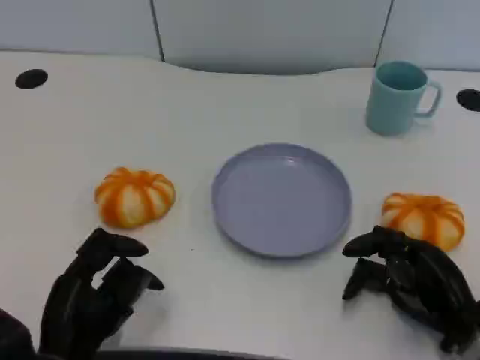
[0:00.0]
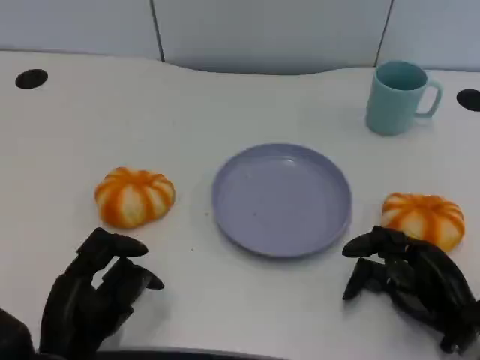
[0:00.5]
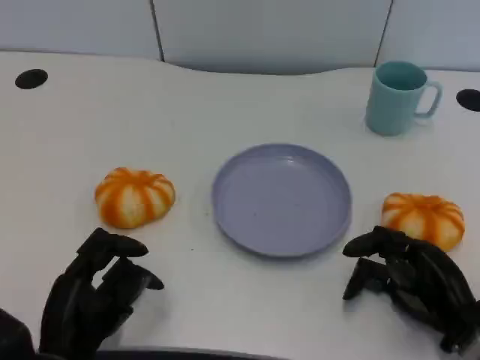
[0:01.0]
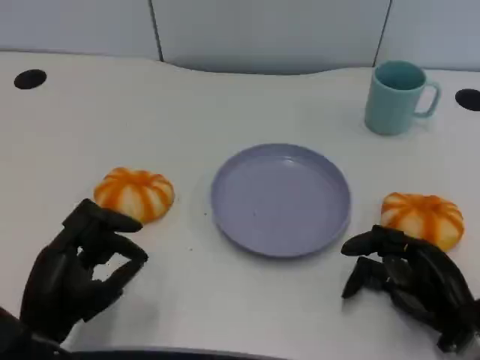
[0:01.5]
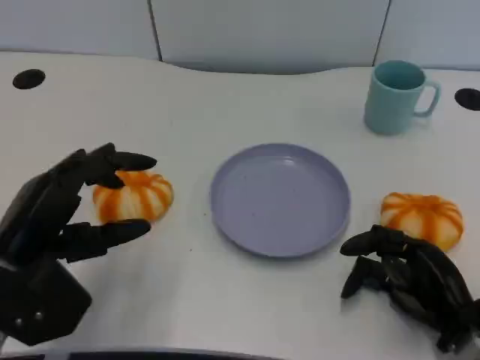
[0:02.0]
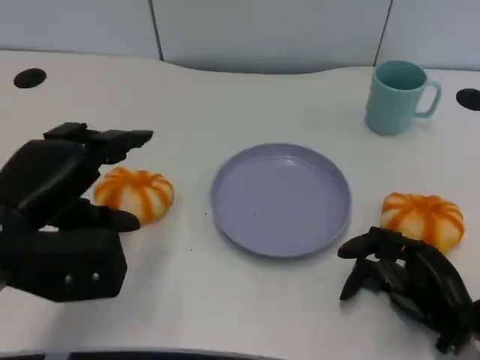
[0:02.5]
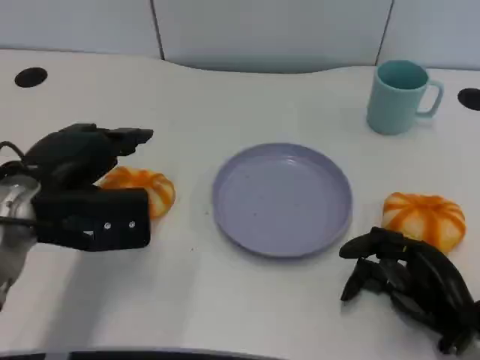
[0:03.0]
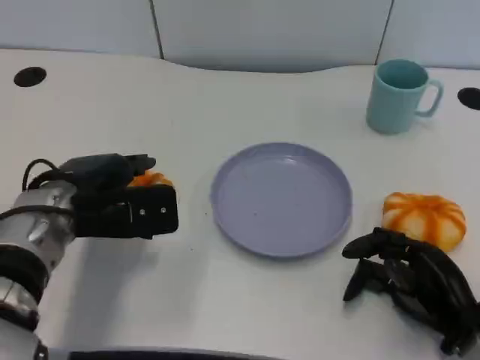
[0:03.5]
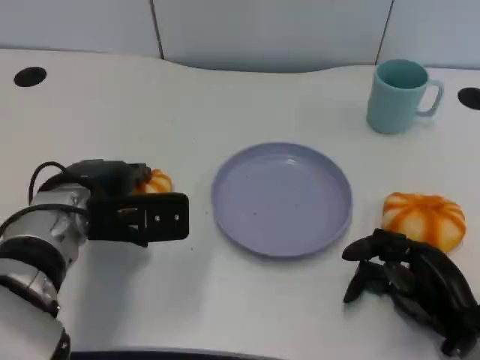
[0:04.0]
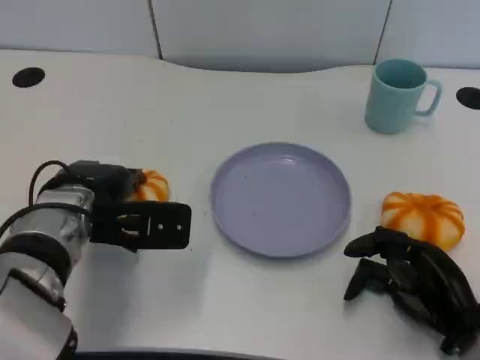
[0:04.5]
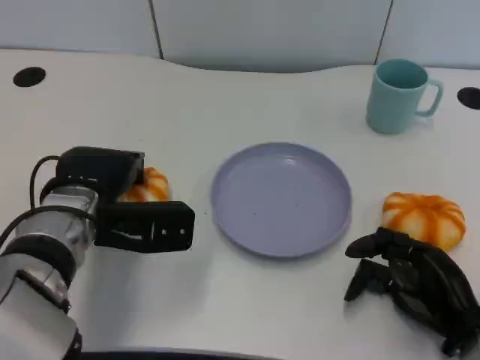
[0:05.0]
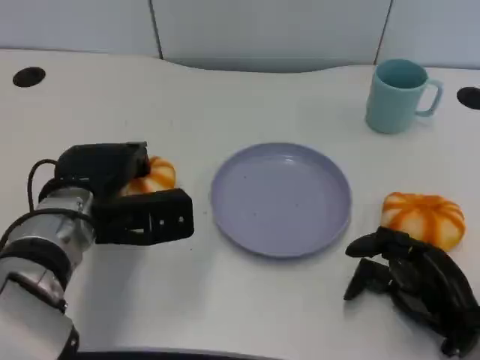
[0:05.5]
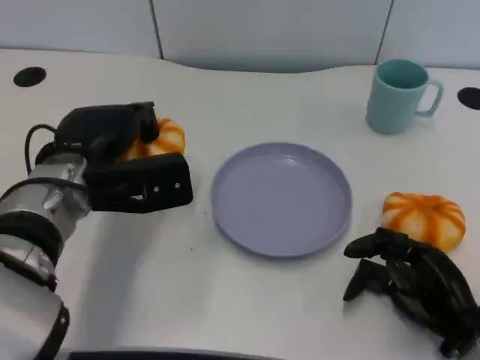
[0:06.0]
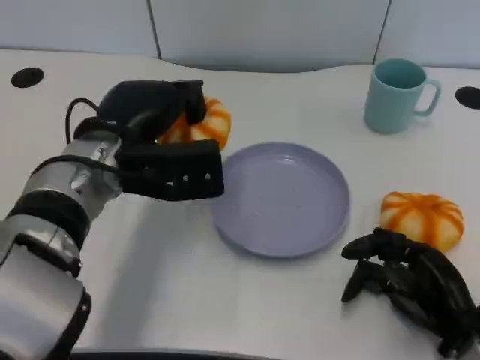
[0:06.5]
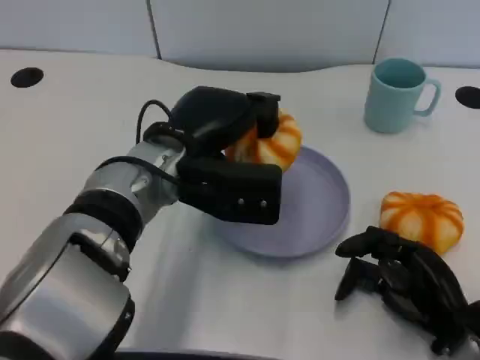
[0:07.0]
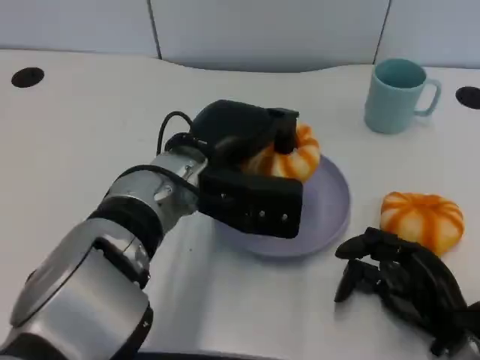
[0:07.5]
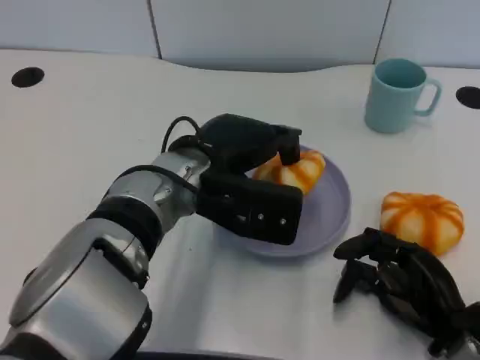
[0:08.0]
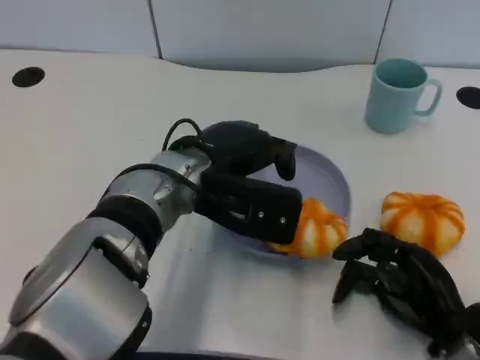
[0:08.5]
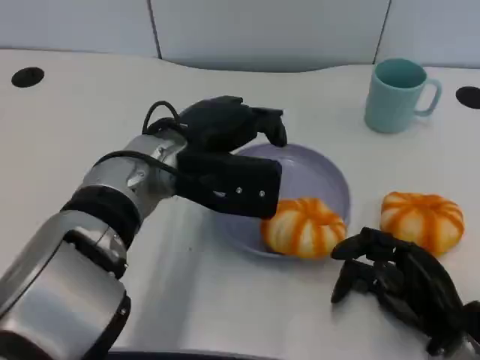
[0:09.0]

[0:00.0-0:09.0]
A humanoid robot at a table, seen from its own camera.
Task of the whole recording: Grasp the bread from the table and place it into the plate.
0:00.0 to 0:02.0: The left hand shifts approximately 10 cm upward.
0:02.0 to 0:04.5: The left hand moves forward and to the right, about 10 cm.
0:04.5 to 0:07.0: The left hand is displaced to the right by some 10 cm.
0:07.0 to 0:09.0: The hands make only small movements.

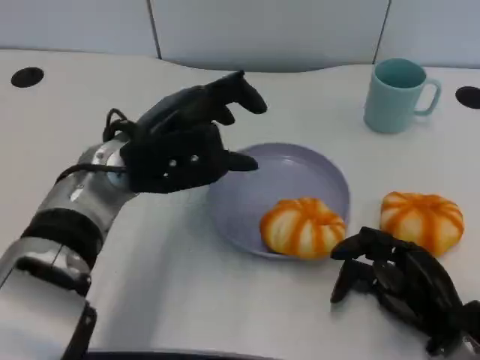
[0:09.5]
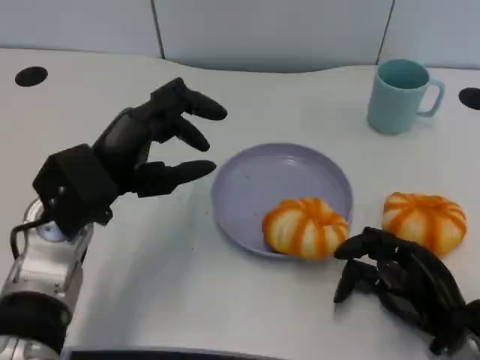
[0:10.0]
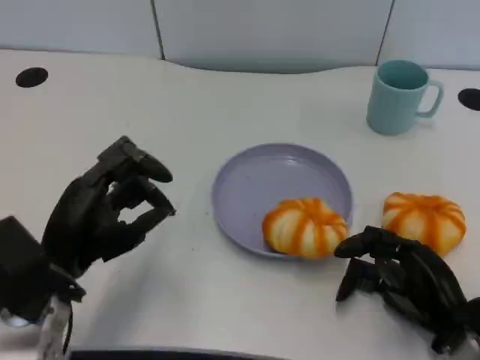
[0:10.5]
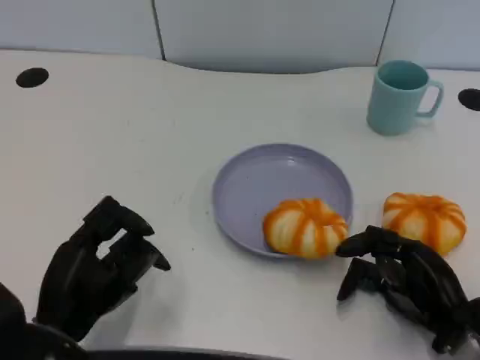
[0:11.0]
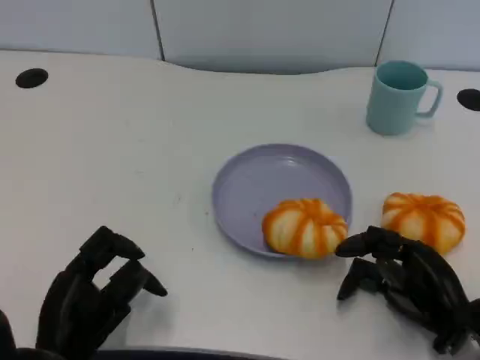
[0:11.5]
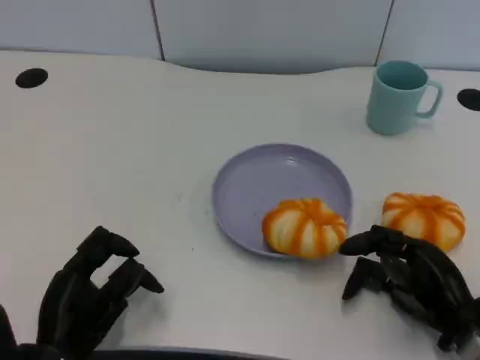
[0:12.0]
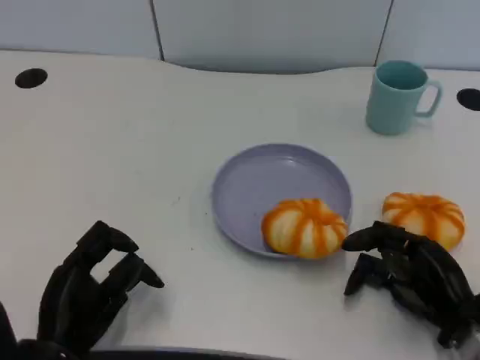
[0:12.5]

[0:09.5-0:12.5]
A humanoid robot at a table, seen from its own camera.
Task of the whole recording: Grasp the bread from the table and place it into the plate.
0:09.5 to 0:11.0: The left hand goes approximately 20 cm backward, downward and to the left.
0:11.0 to 0:12.5: There are only small adjustments of the hands.

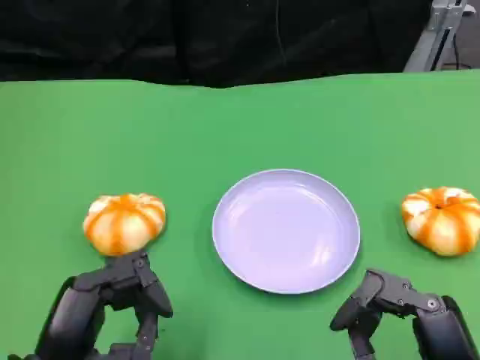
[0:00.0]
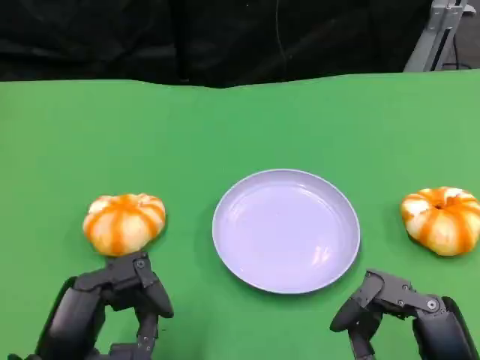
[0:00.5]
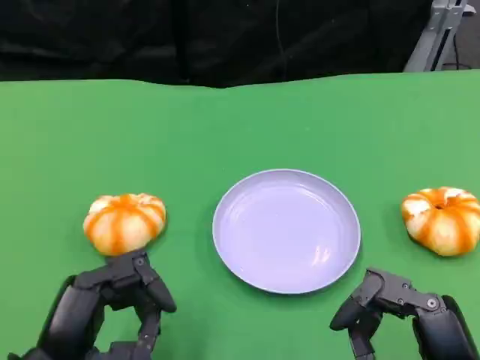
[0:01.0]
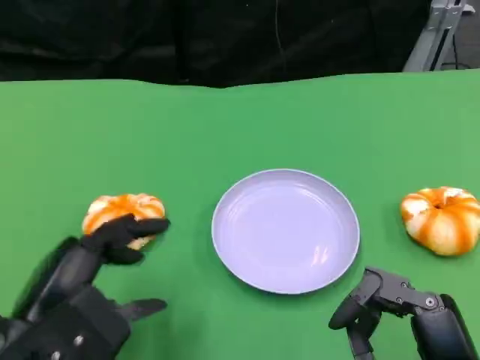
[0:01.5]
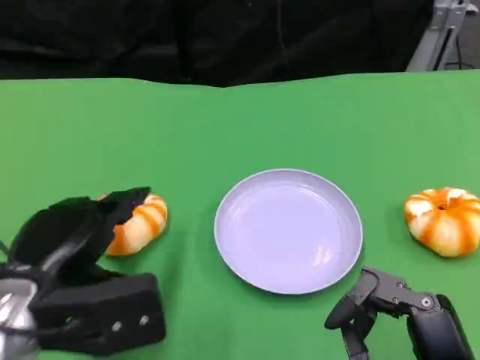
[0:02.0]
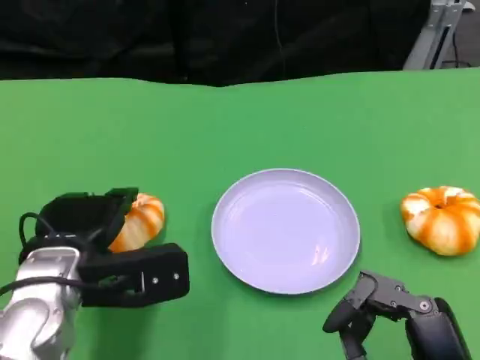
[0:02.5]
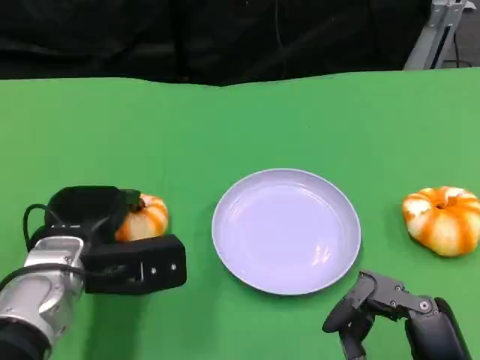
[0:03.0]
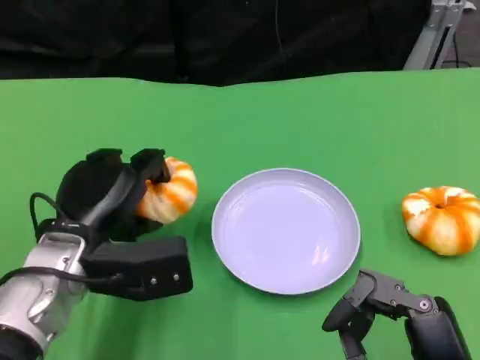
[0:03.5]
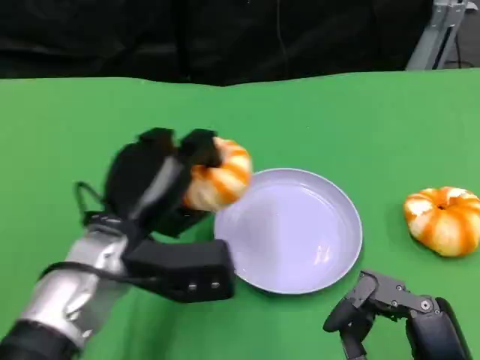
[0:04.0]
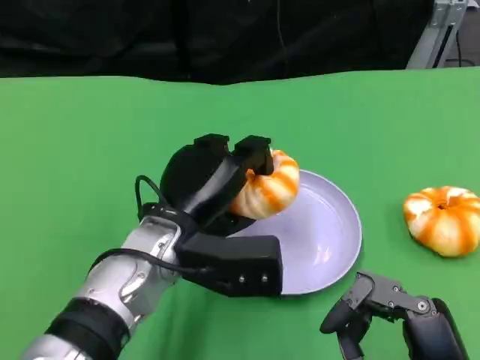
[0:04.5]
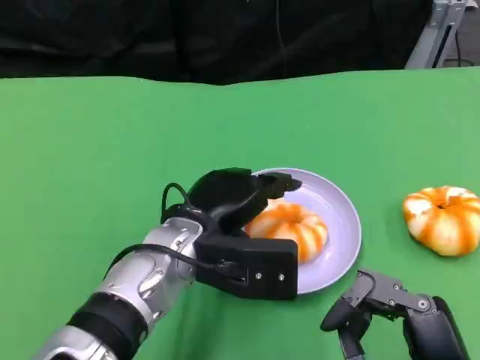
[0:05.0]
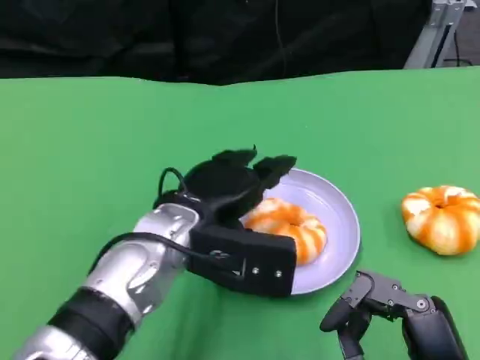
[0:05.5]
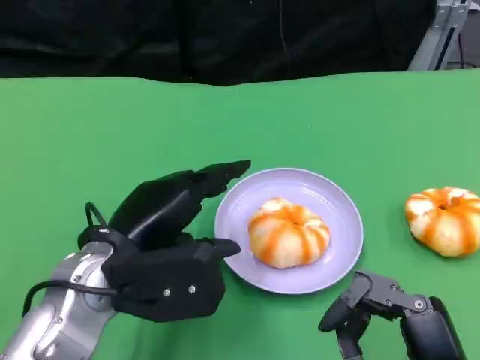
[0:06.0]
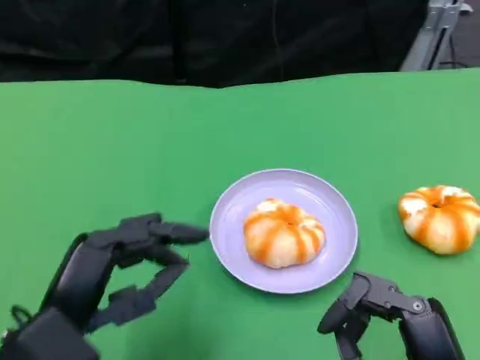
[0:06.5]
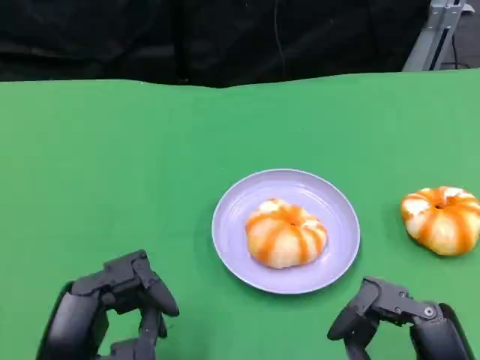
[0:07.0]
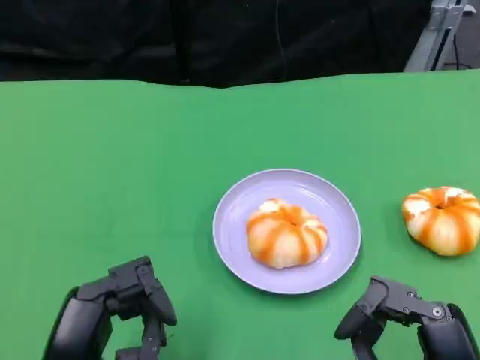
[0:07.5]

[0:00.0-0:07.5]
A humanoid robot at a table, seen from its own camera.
Task of the whole recording: Grasp the bread from the table and place it into the plate.
0:00.0 to 0:02.0: The left hand moves forward, about 5 cm.
0:02.0 to 0:04.0: The left hand goes some 10 cm to the right and forward.
0:05.5 to 0:07.5: The left hand is displaced backward and to the left by approximately 20 cm.

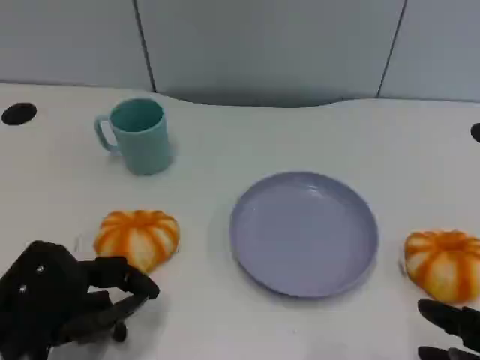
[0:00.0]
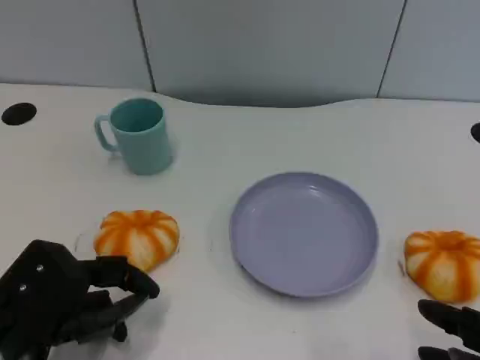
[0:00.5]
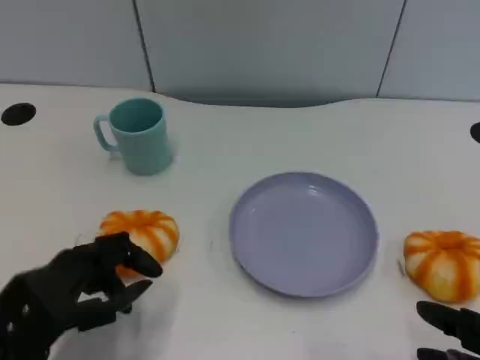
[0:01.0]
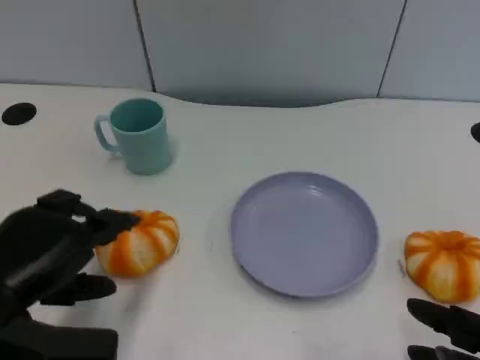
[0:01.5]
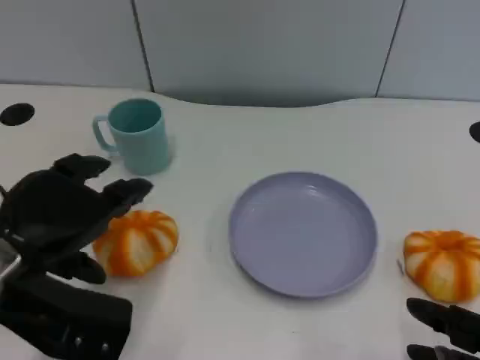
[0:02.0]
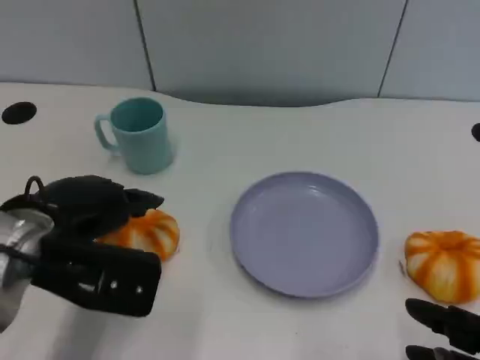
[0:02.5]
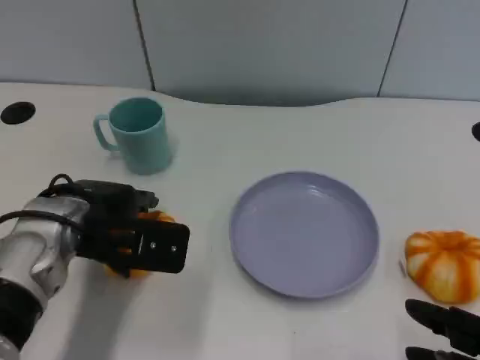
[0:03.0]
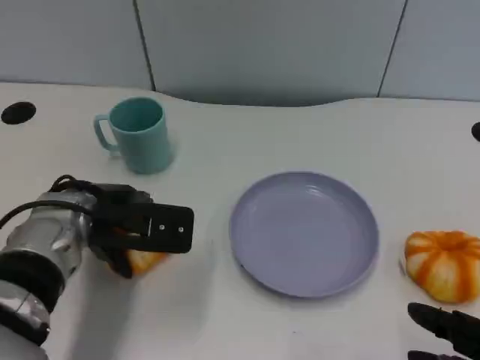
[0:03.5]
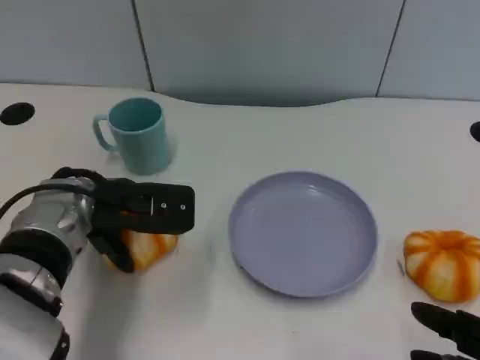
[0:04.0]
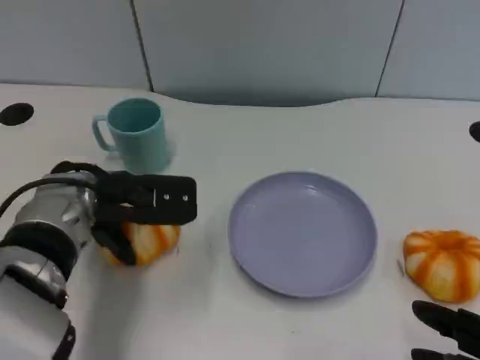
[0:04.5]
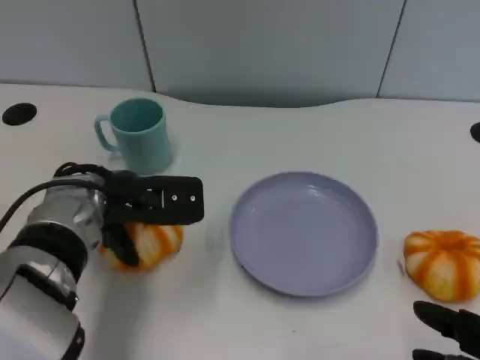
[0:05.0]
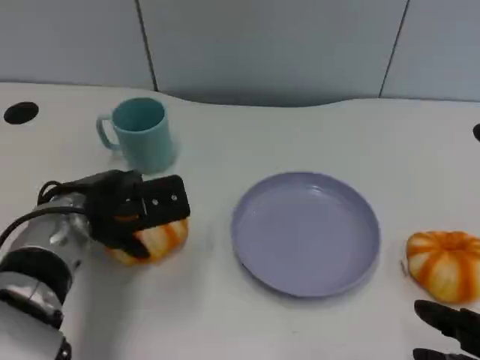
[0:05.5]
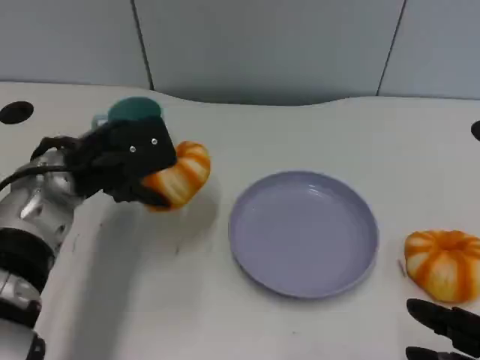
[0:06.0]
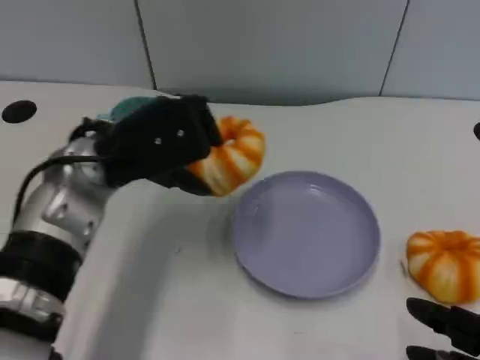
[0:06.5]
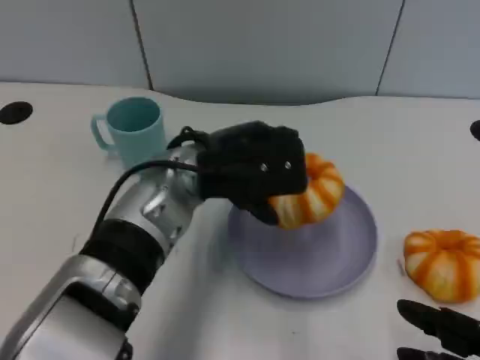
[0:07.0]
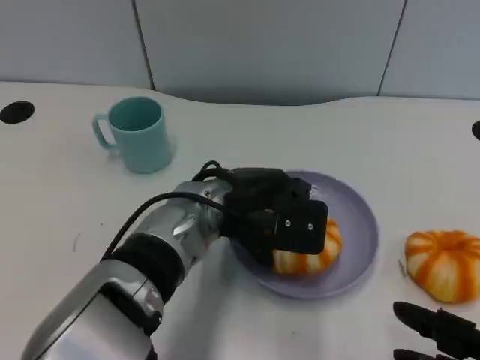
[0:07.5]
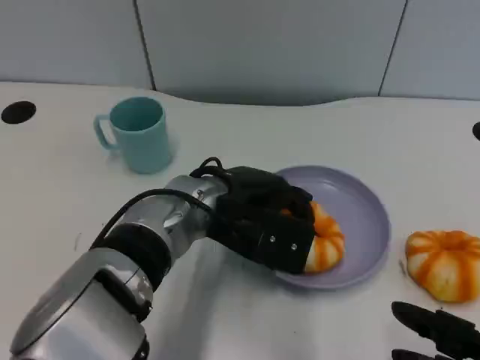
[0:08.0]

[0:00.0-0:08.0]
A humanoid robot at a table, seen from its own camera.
Task of the whole recording: Grasp the bread from the table and place it into the plate.
0:00.0 to 0:02.0: The left hand goes some 10 cm upward.
0:02.0 to 0:04.0: The left hand heads forward and to the right, covering about 10 cm.
0:06.0 to 0:08.0: The left hand shifts some 15 cm to the right.
